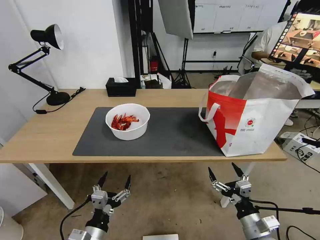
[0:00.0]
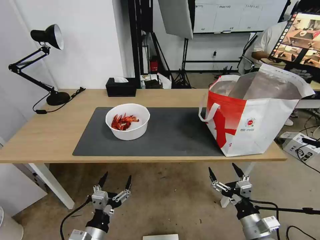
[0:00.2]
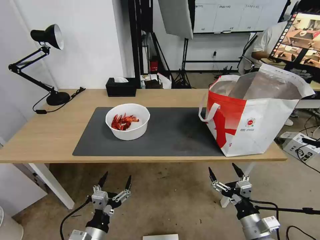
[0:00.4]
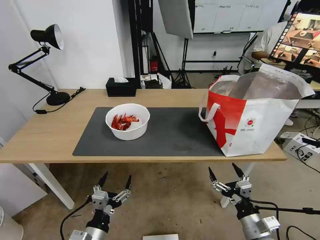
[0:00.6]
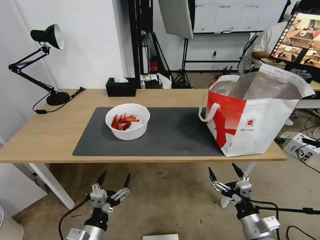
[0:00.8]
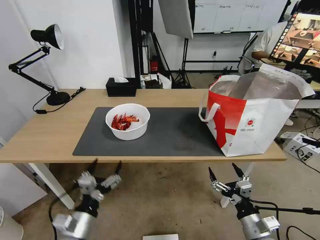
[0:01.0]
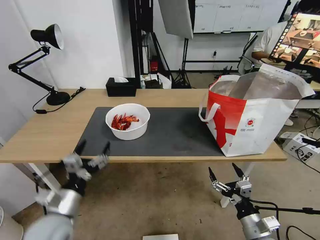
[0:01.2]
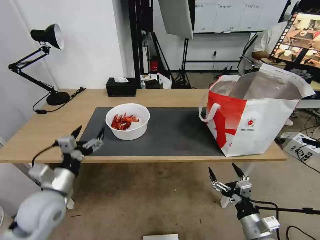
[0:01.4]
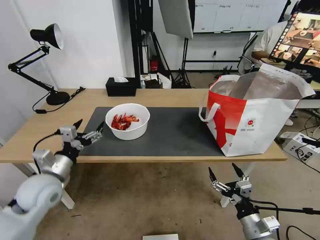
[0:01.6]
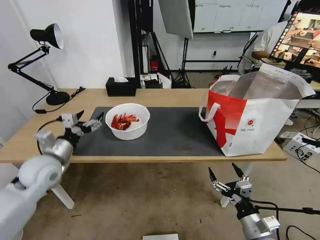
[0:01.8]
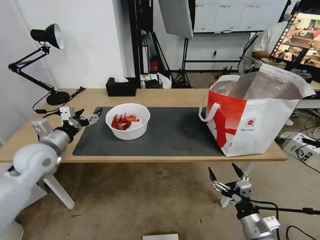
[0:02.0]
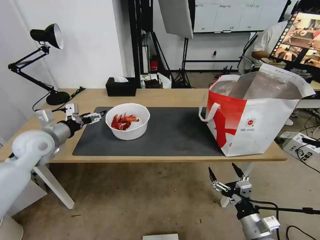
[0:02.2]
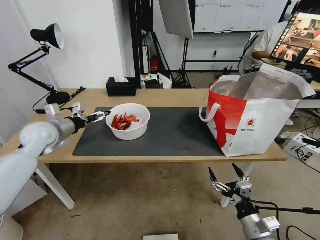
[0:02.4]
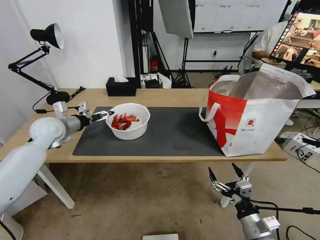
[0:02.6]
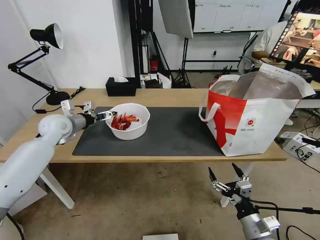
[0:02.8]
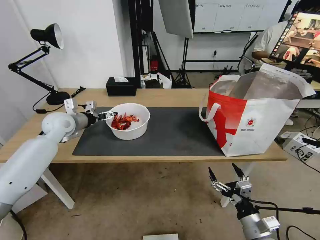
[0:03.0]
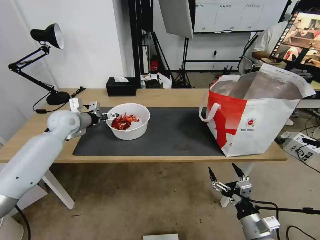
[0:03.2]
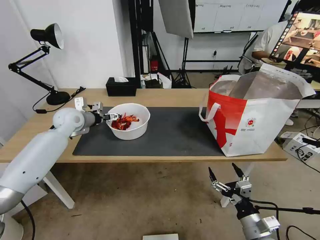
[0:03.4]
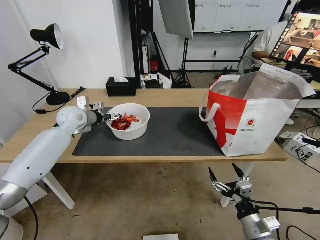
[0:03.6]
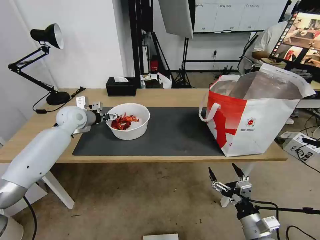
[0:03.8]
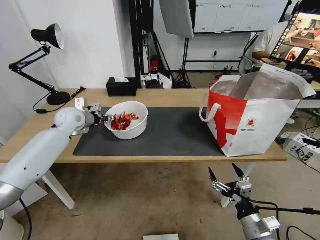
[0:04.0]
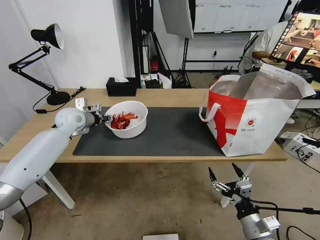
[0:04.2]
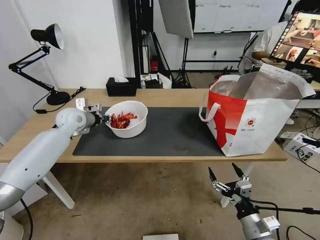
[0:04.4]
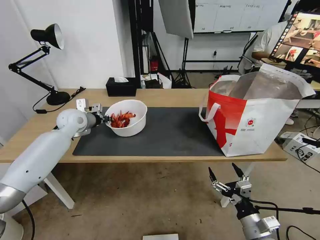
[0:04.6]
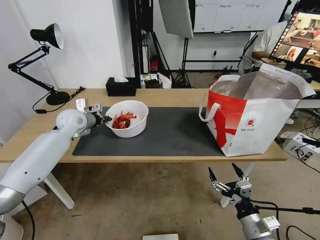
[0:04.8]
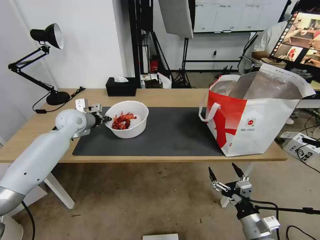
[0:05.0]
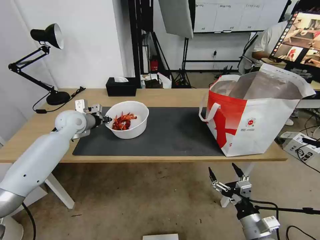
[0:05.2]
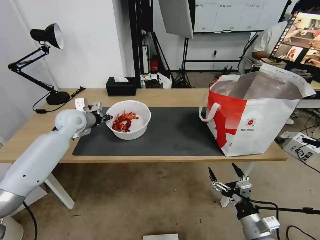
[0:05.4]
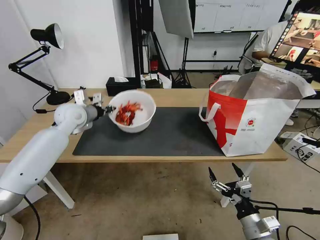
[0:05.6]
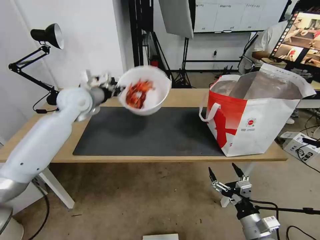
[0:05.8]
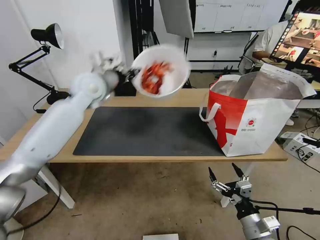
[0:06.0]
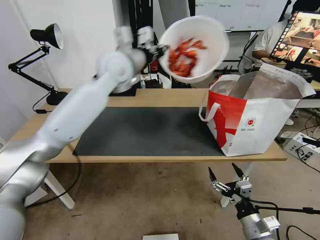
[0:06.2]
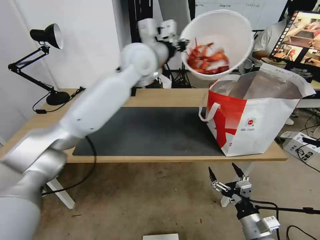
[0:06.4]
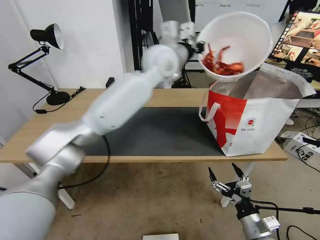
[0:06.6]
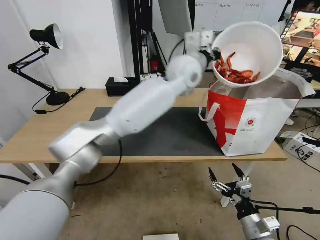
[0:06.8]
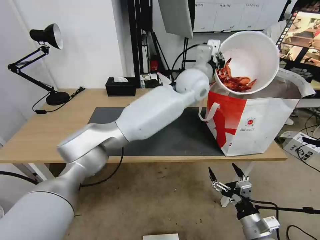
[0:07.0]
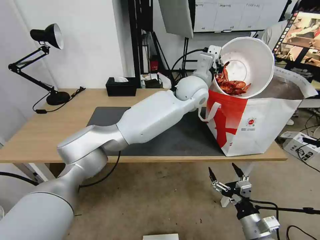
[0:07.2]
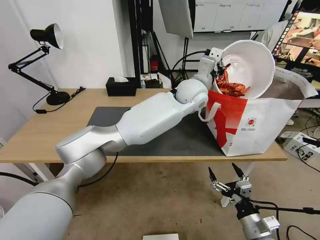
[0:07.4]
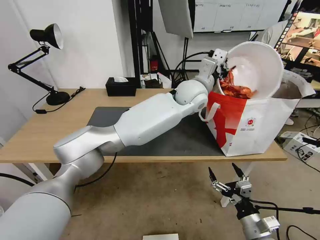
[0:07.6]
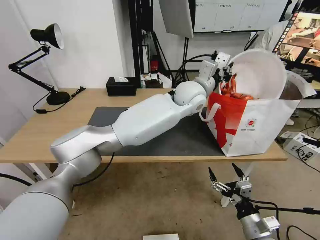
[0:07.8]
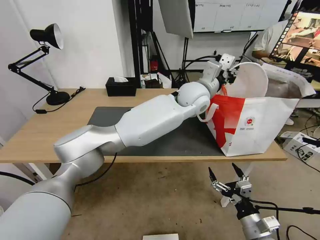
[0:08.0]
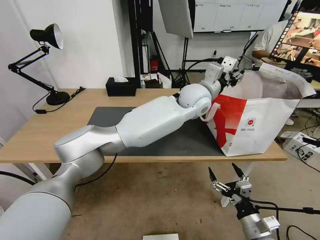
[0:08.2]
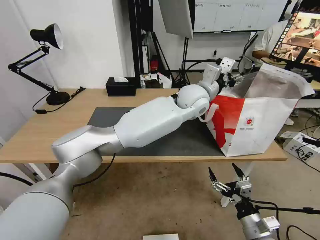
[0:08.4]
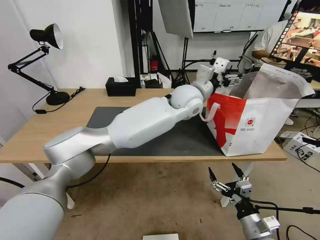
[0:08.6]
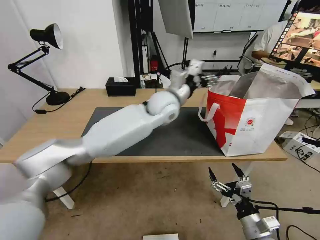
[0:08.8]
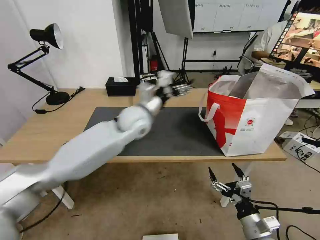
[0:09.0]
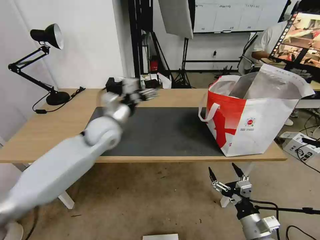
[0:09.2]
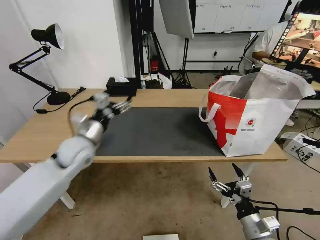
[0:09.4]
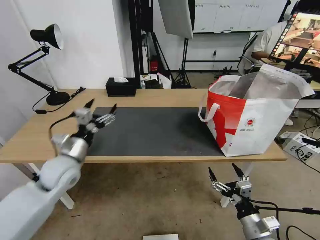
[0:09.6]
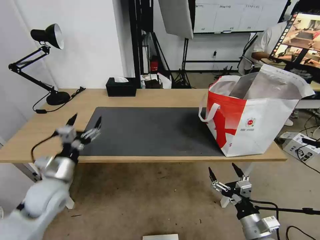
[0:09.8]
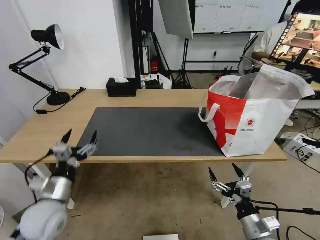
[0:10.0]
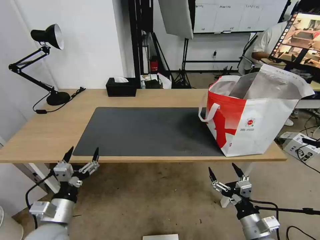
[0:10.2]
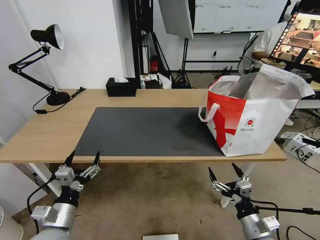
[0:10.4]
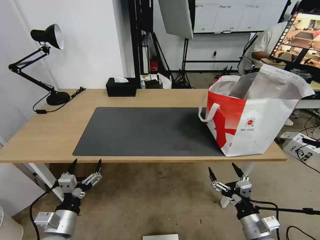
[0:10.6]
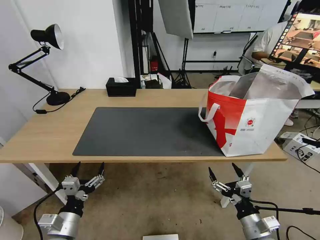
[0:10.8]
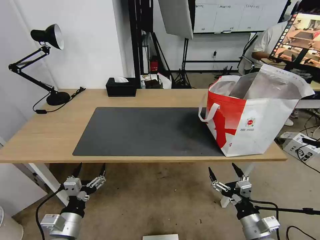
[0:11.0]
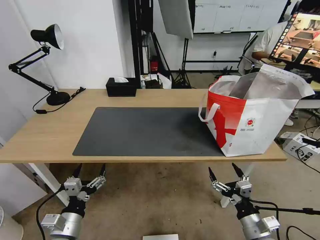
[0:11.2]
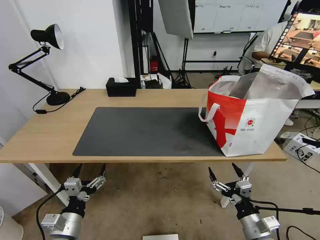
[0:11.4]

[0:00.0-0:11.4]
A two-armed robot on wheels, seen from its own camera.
Task of the whole recording: Pick up the trash from the table and place it into the takeout bag.
0:00.0 to 0:01.4: The left gripper is displaced forward, upward and to the left by approximately 20 cm.
0:01.4 to 0:02.8: The left gripper heads forward, covering roughly 25 cm.
0:02.8 to 0:04.2: The left gripper shifts by about 5 cm, and closes up.
0:04.2 to 0:05.6: The left gripper shifts by roughly 5 cm, and closes its fingers.
0:05.6 to 0:07.2: The left gripper shifts roughly 40 cm to the right.
0:07.2 to 0:08.6: The left gripper opens up.
0:08.6 to 0:10.0: The left gripper shifts roughly 50 cm to the left, backward and downward.
0:10.0 to 0:11.4: The left gripper heads backward and downward, covering some 10 cm.

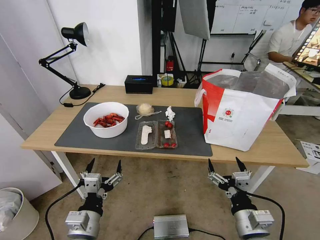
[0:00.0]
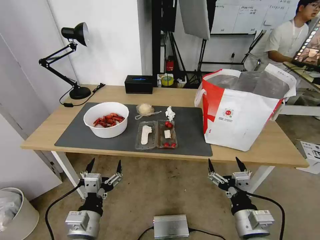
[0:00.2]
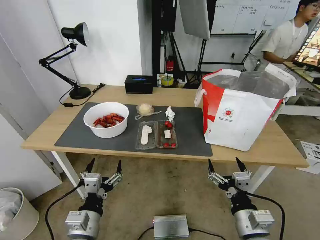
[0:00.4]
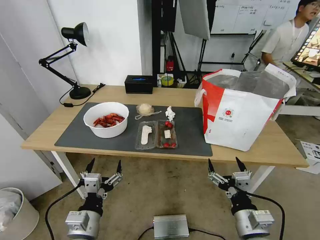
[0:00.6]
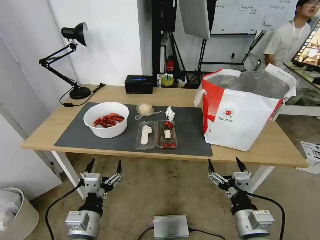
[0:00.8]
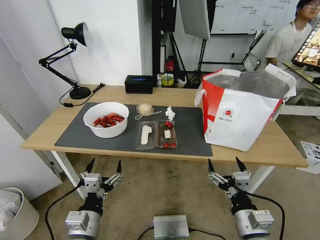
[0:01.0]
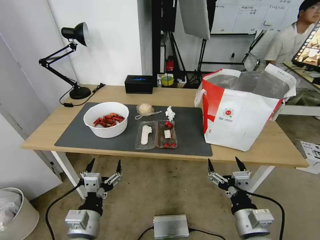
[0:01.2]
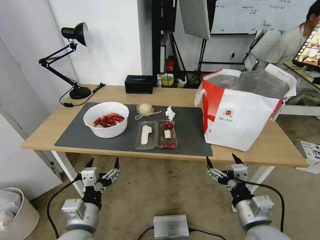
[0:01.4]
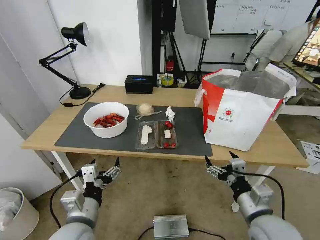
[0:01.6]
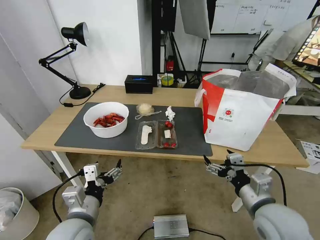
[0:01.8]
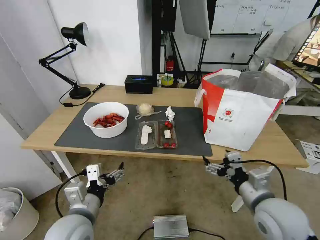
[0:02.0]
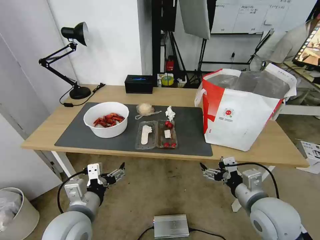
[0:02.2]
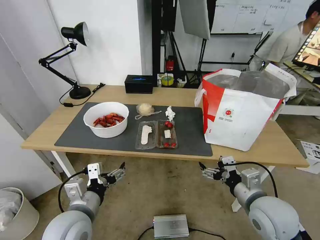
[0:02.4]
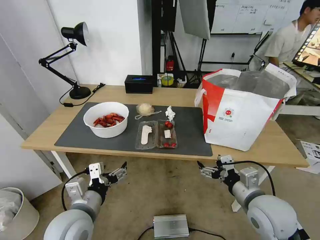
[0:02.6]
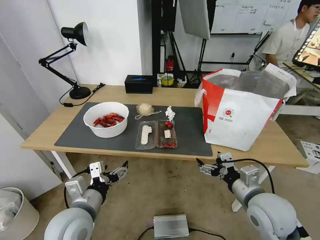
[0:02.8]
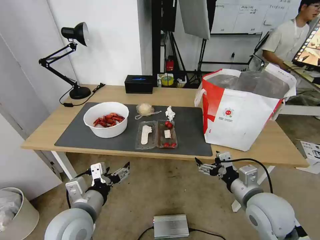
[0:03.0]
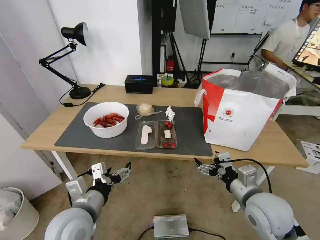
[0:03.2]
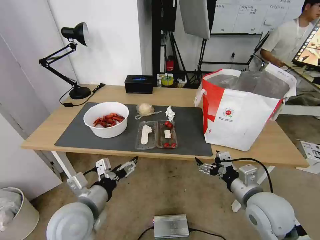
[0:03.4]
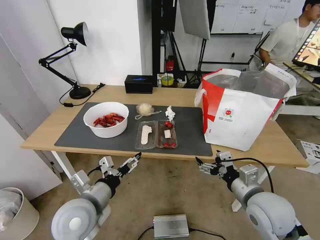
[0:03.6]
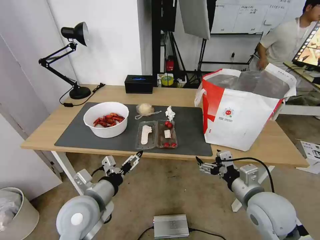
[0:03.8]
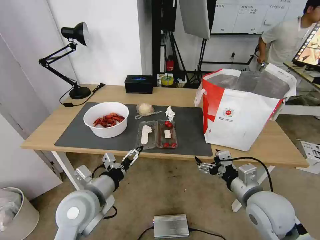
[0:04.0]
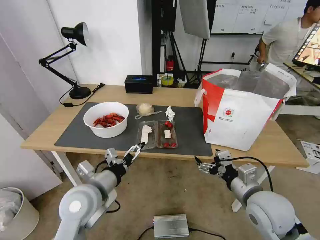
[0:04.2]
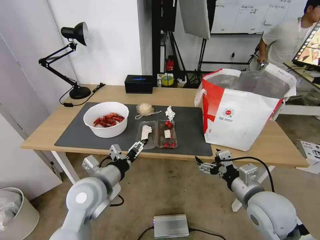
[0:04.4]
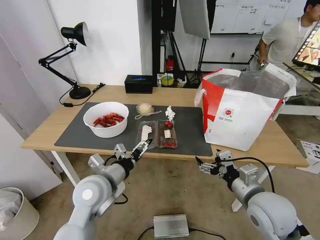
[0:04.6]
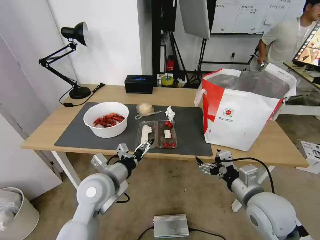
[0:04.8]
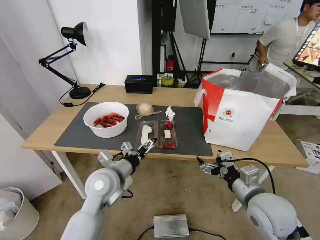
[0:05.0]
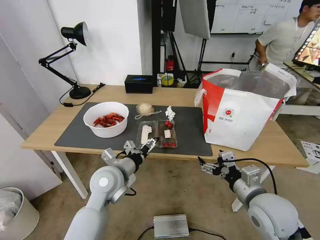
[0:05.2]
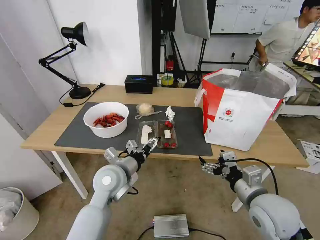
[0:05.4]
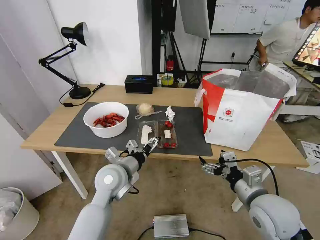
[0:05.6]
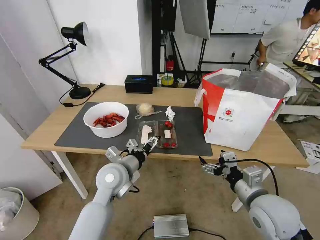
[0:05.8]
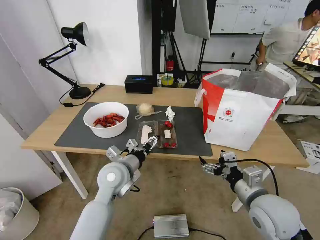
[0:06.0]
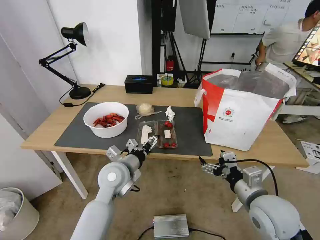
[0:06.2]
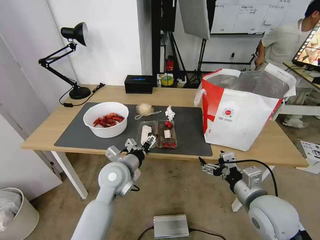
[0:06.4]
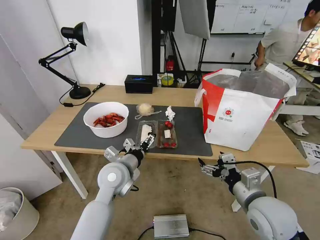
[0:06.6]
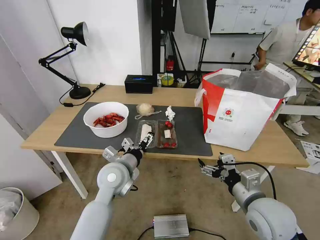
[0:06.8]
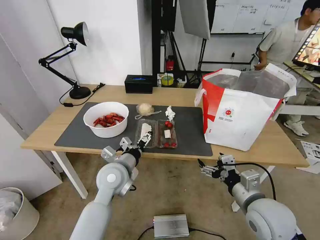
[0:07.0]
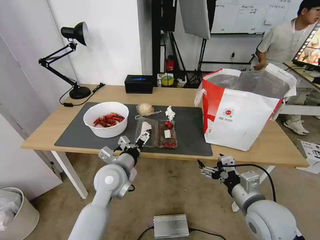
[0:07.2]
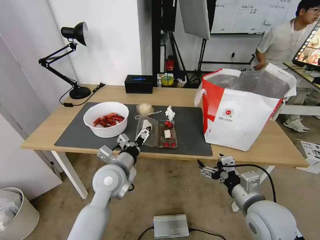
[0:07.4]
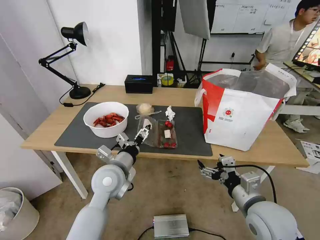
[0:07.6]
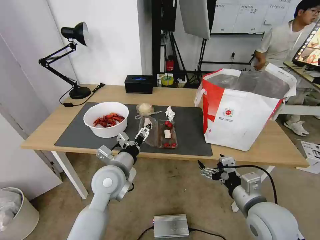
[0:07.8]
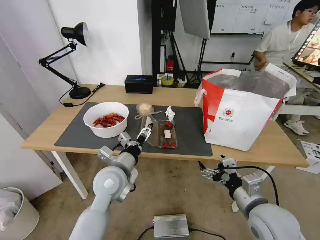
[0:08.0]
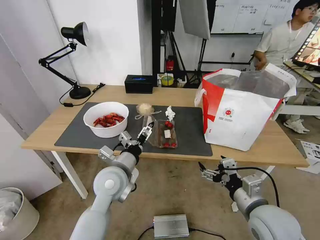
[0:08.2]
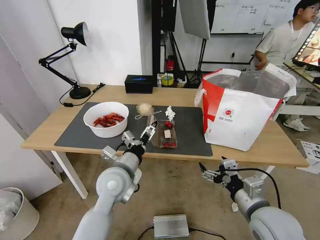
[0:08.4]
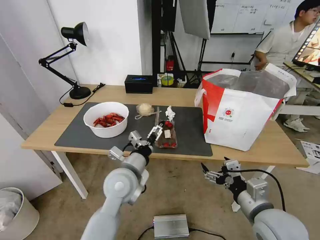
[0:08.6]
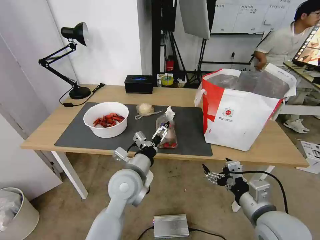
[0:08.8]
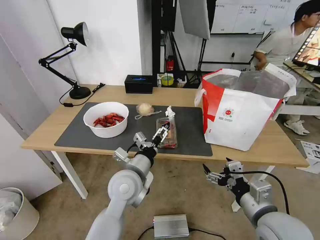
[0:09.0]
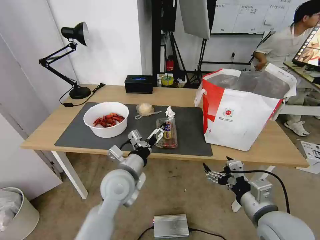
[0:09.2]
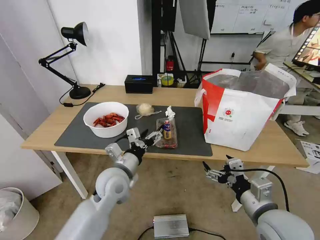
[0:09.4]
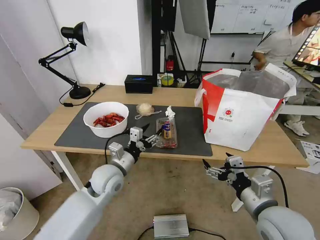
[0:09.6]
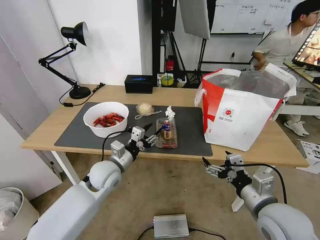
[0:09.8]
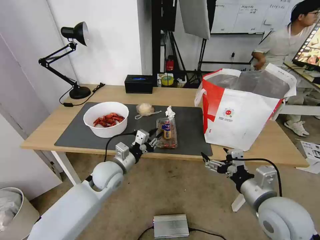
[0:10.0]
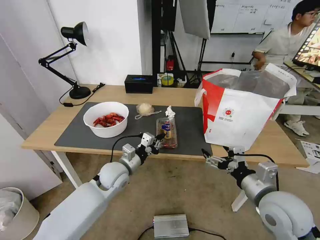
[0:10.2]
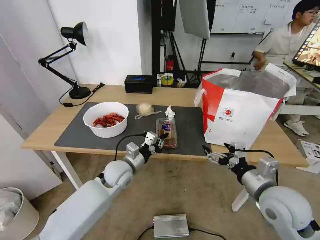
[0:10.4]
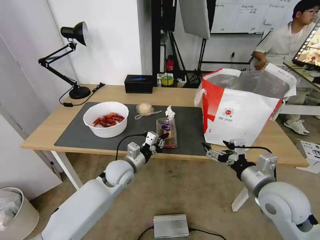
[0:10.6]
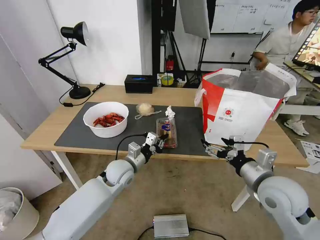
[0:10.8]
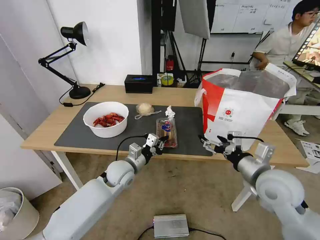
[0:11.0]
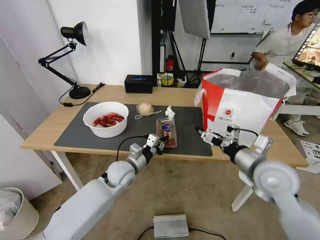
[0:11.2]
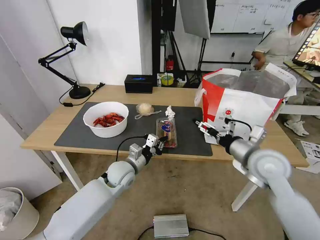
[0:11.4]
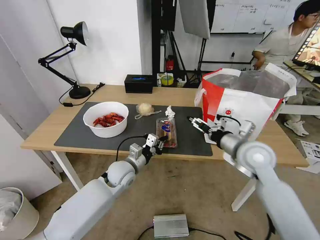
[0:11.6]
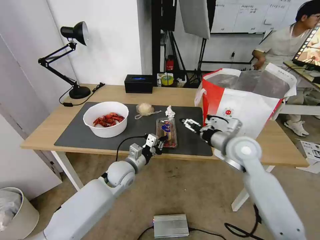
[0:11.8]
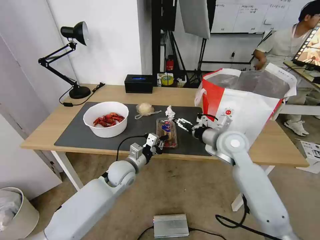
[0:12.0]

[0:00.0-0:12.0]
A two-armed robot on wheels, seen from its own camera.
Task of the whole recording: Pick up the trash from the table and place it into the takeout bag.
0:01.6 to 0:03.0: The right gripper heads forward, covering approximately 5 cm.
0:03.0 to 0:04.4: The left gripper is displaced forward by roughly 5 cm.
0:04.4 to 0:06.0: The left gripper is displaced forward and to the right by about 10 cm.
0:06.0 to 0:07.6: The grippers stay close to where they were, moving slightly.
0:07.6 to 0:09.0: The left gripper heads to the right, covering approximately 5 cm.
0:09.0 to 0:10.4: The right gripper goes roughly 5 cm forward, while the left gripper travels forward and downward by some 10 cm, and closes its fingers.
0:10.4 to 0:12.0: The right gripper heads forward, covering approximately 15 cm.
